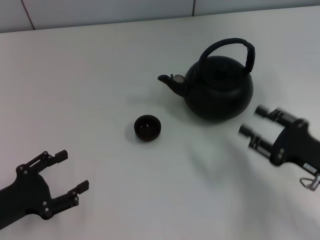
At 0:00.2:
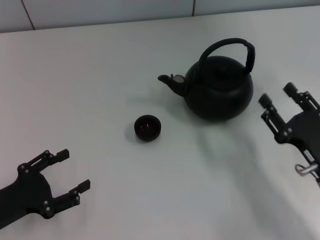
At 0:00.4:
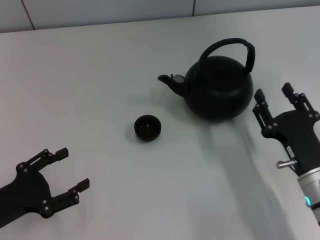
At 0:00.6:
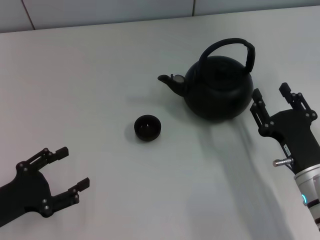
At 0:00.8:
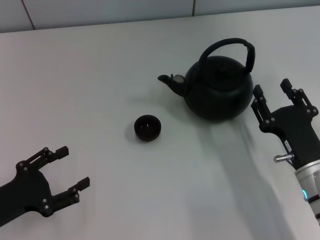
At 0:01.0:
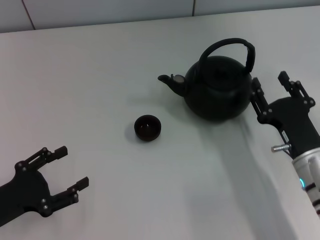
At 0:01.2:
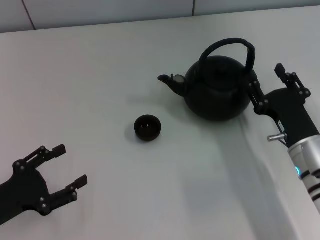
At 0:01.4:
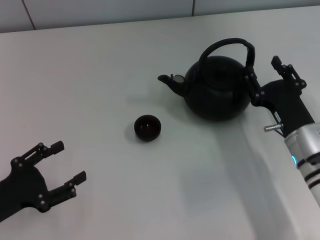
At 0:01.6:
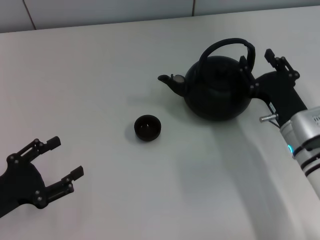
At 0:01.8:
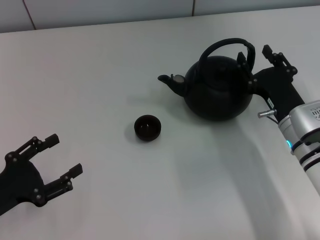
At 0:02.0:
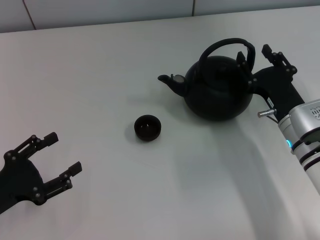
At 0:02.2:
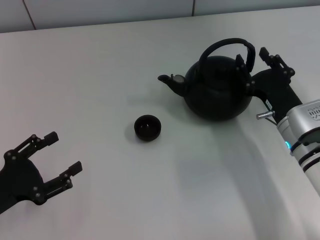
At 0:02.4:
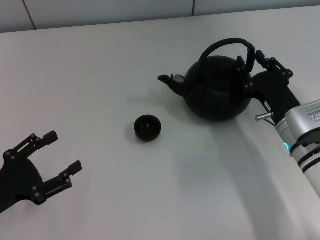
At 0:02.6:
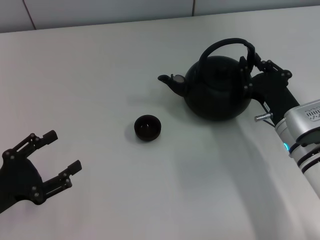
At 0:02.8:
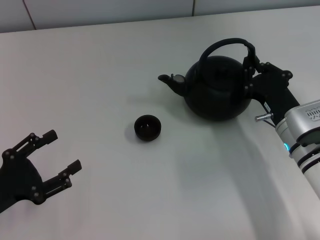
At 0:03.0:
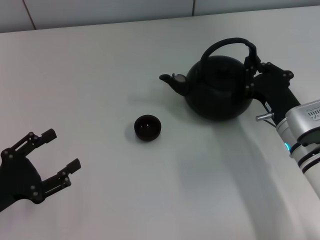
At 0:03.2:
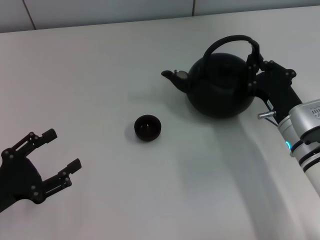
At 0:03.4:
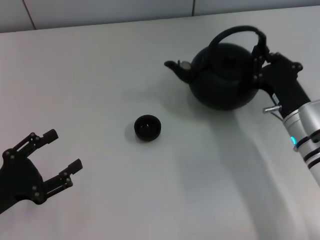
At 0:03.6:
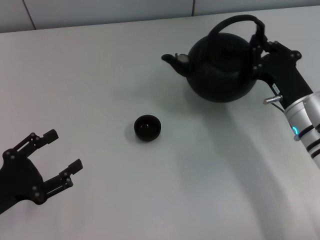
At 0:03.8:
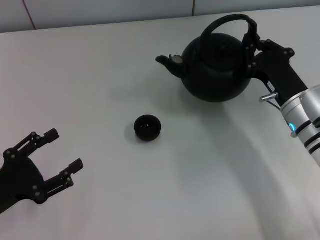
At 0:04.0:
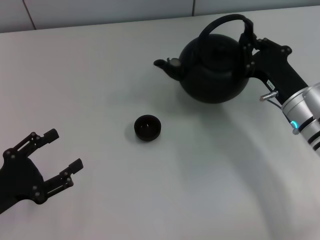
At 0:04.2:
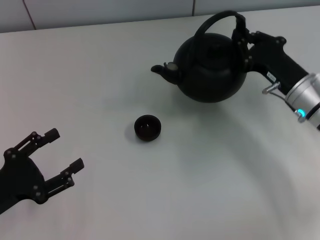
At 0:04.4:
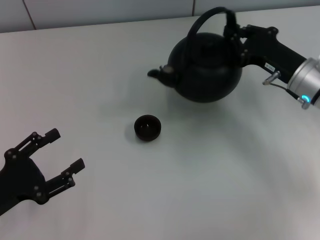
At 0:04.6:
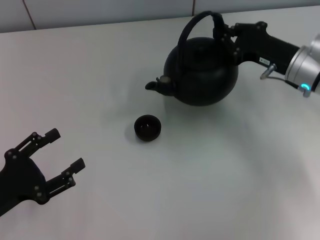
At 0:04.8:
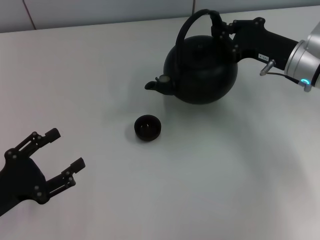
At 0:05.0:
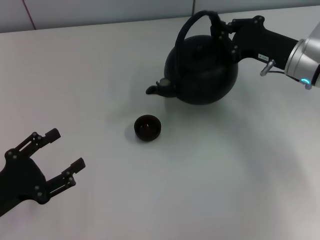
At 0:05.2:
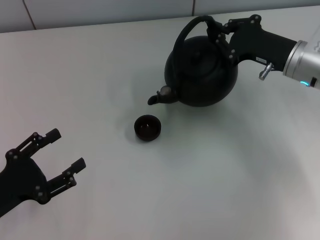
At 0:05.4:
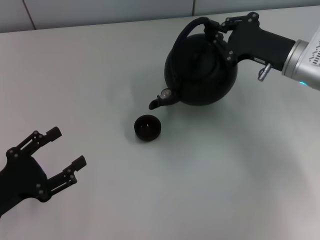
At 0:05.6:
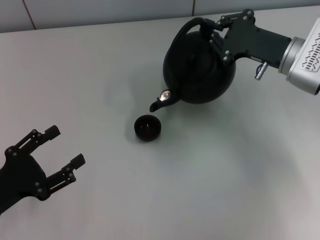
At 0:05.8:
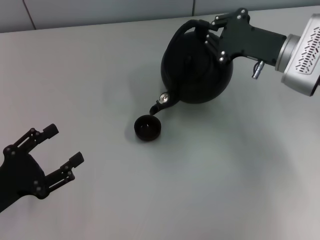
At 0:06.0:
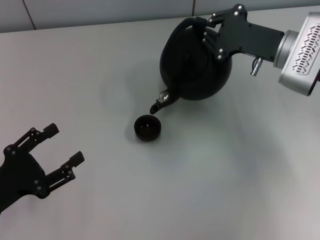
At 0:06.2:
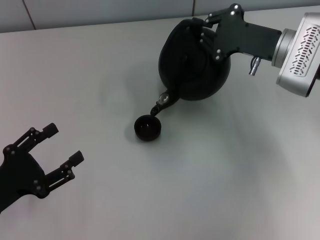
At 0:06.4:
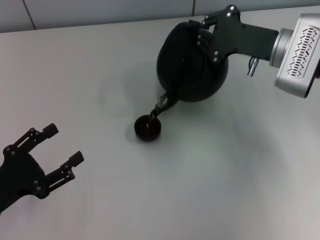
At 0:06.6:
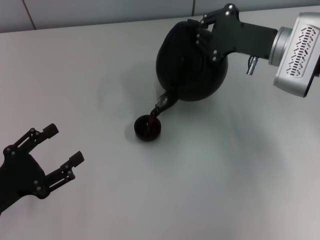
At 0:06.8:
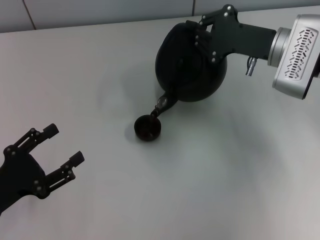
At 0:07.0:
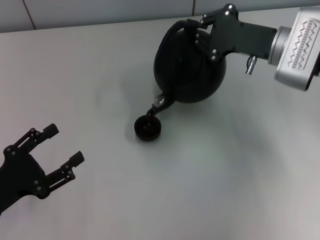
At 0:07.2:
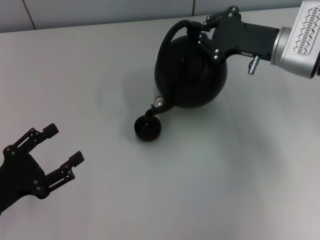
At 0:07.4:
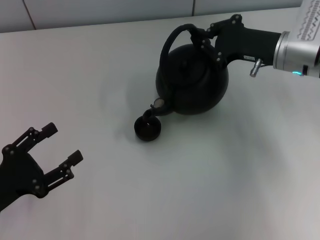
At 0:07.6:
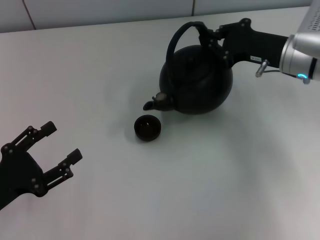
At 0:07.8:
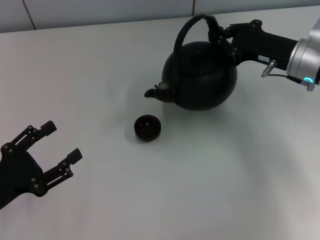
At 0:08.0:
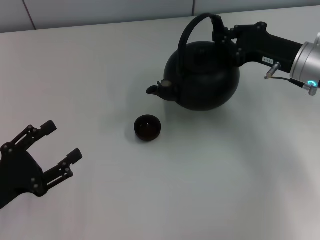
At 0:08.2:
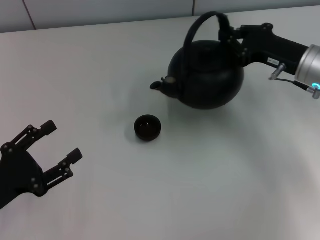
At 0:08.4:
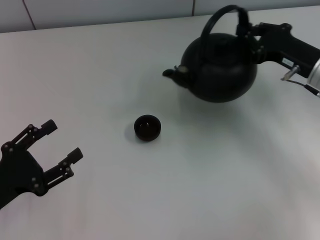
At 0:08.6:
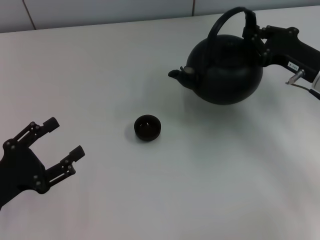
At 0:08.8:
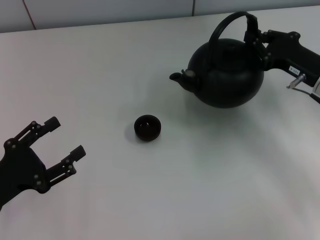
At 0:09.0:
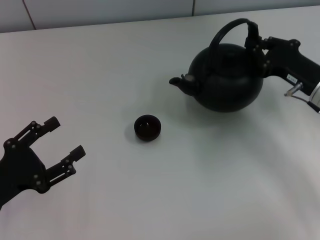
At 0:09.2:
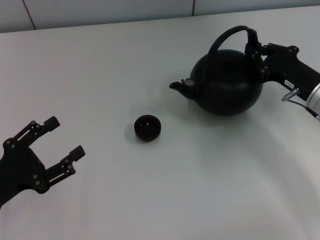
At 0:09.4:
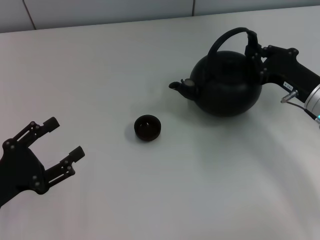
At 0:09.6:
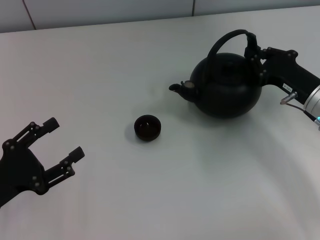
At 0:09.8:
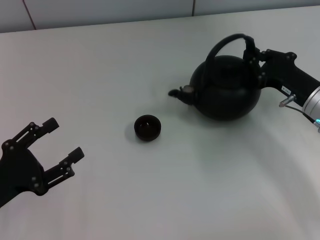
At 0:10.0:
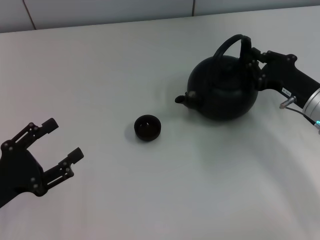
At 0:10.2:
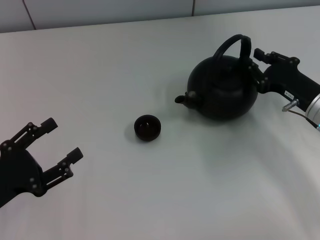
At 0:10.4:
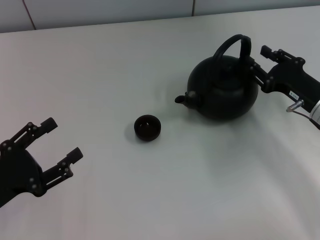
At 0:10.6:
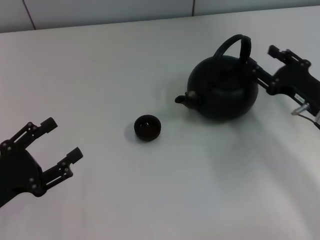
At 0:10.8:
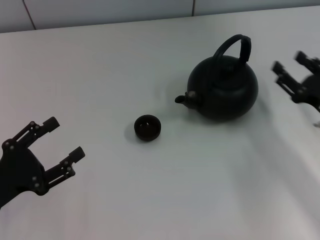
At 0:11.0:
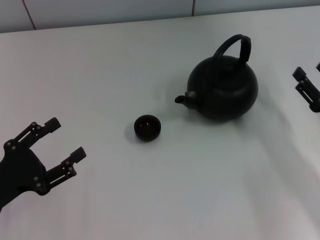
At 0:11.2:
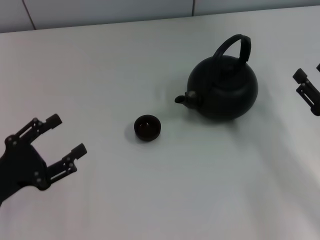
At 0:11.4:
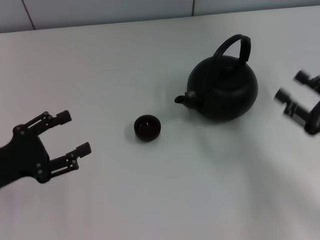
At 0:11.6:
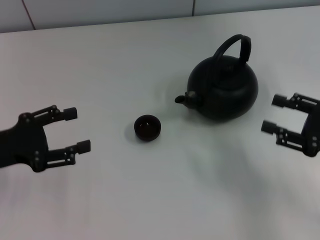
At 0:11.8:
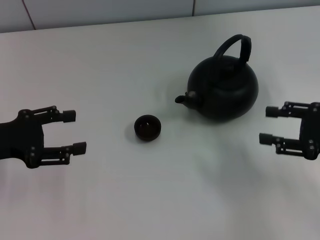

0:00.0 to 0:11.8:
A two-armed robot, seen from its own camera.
Task of the whole recording: Grasp the handle of the teapot with one hand and pour tea into the teacup.
Step, 0:00.0 to 0:03.6: Pick up the teapot with the right gripper.
Step, 0:08.2 to 0:10.4: Put down the teapot with the right gripper.
0:00.0 to 0:01.4: The right gripper travels to the left and forward by roughly 10 cm.
0:01.4 to 0:03.0: The right gripper closes.
0:03.0 to 0:04.4: The right gripper moves forward and upward, roughly 10 cm.
0:04.4 to 0:06.0: The right gripper moves some 5 cm.
0:07.4 to 0:08.8: The right gripper travels backward and to the right by roughly 10 cm.
0:08.8 to 0:10.4: The right gripper opens its fingers.
0:10.4 to 0:11.8: The right gripper shifts about 10 cm backward, upward and to the right, and opens, while the left gripper moves forward and upward, roughly 10 cm.
